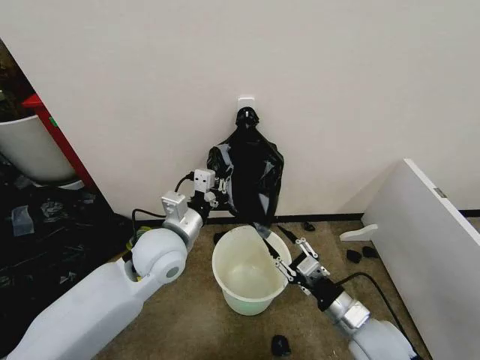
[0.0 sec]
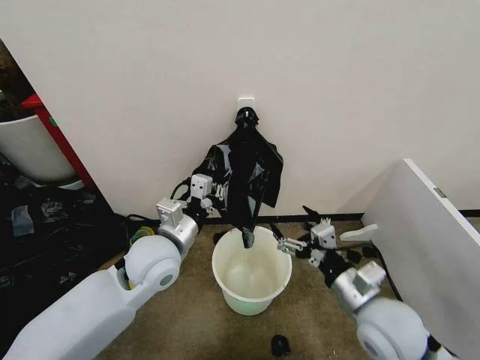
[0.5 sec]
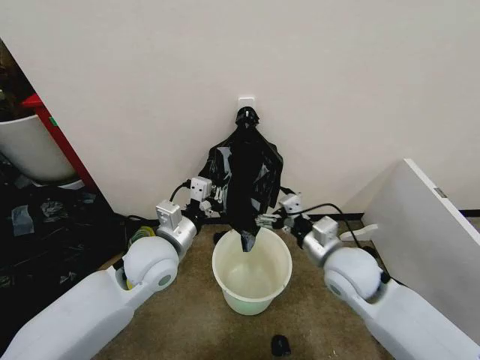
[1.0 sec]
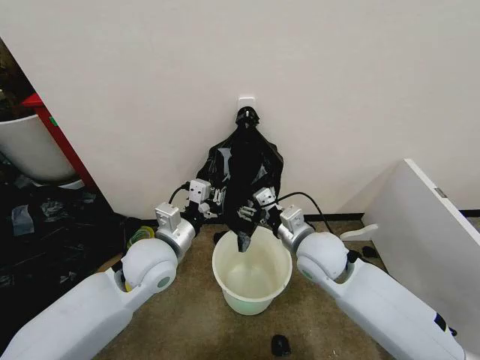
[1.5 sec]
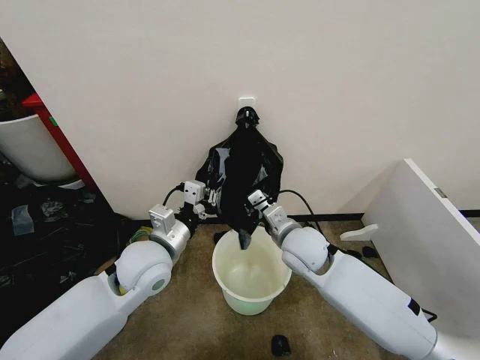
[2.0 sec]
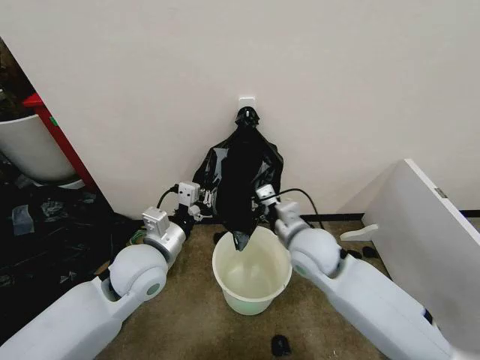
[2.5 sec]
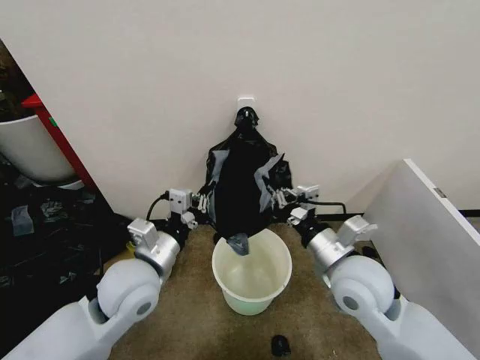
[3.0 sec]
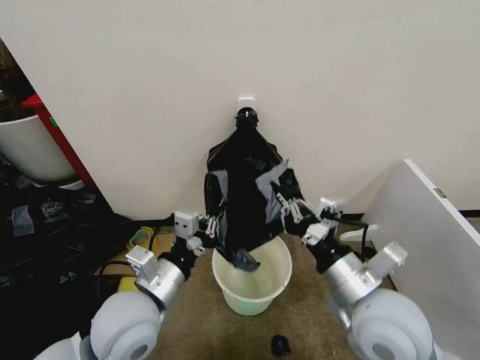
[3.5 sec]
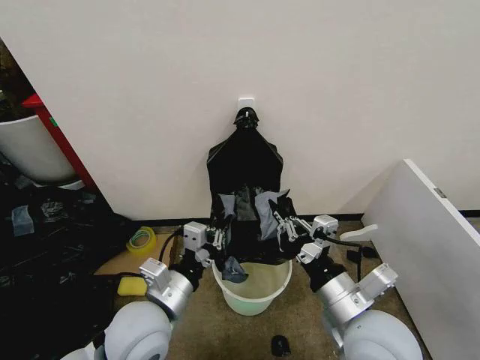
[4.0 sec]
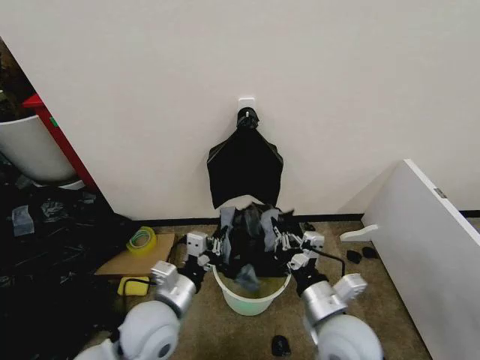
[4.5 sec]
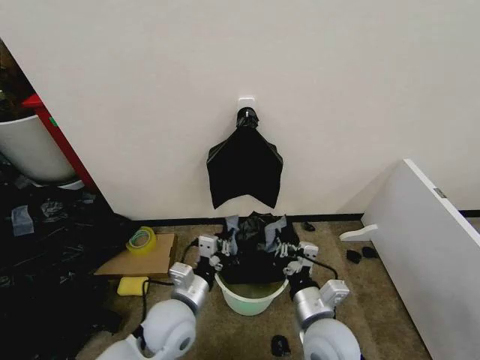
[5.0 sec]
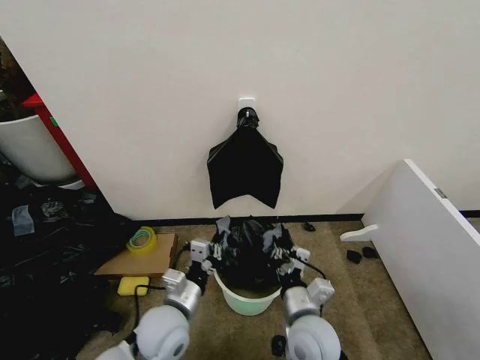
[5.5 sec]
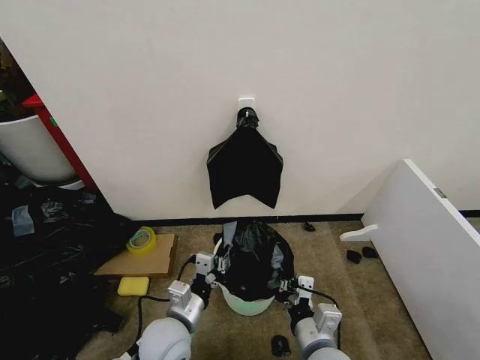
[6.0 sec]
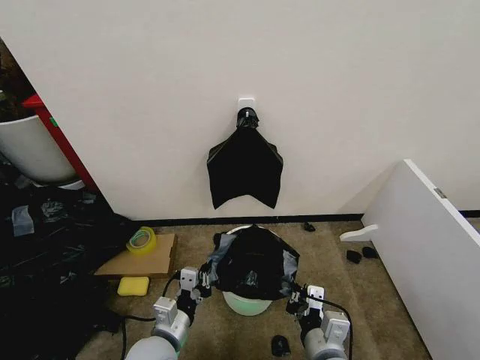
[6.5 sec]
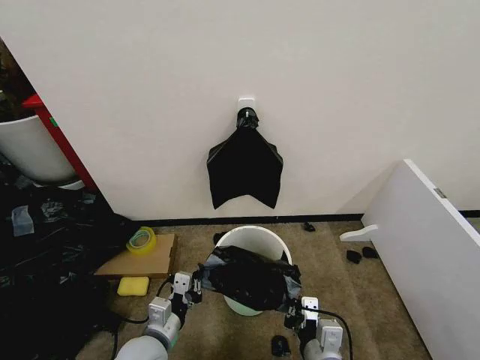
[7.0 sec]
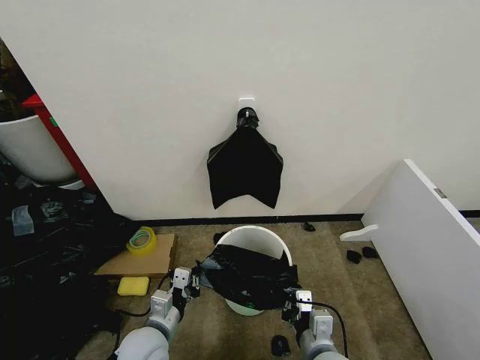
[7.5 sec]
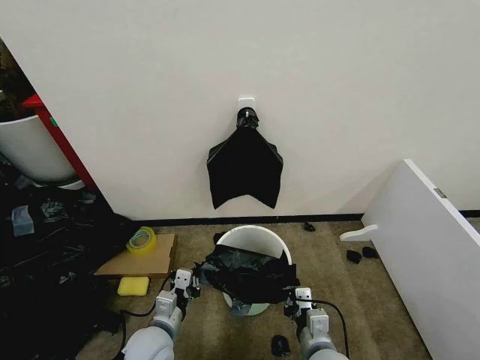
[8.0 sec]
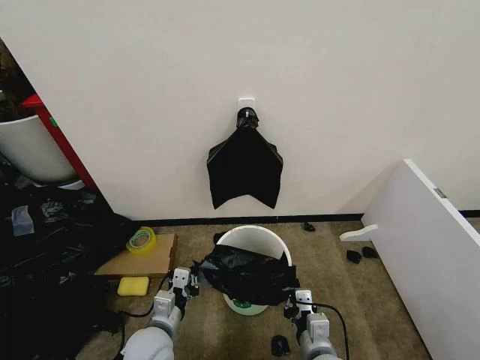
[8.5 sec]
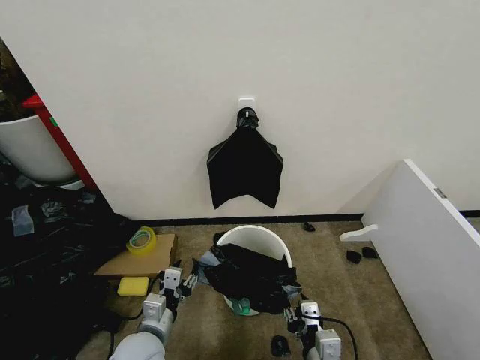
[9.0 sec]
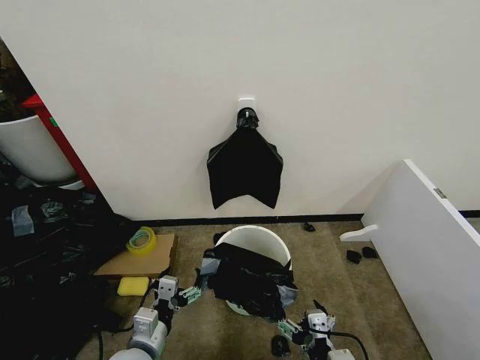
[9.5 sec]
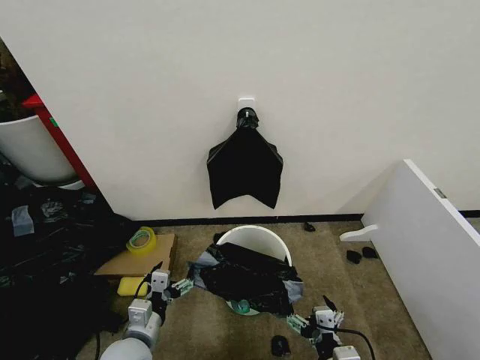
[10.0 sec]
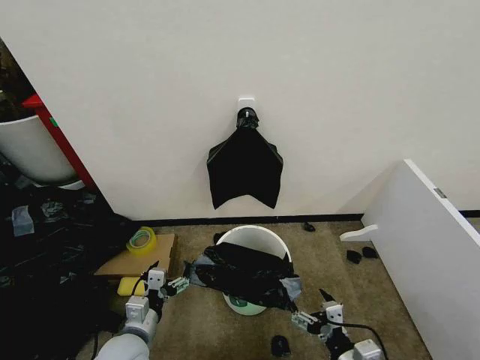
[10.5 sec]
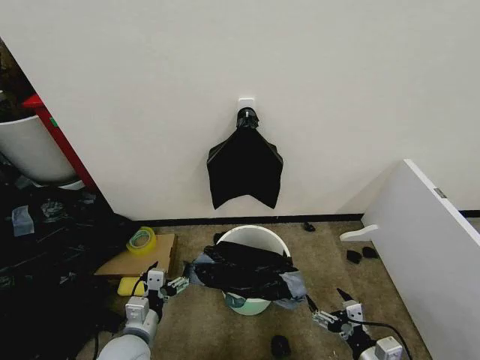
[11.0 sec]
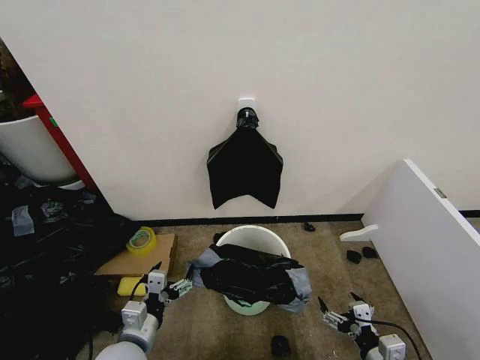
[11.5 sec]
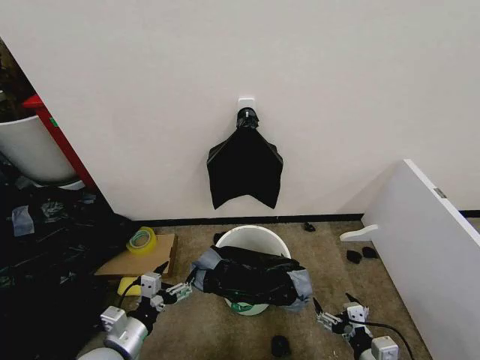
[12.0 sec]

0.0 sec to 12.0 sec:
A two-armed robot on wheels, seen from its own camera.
Task of the whole recording: Place the garbage bag over the trash bin.
0.0 sec to 2.0 sec: The right gripper moves forward, to the left and upward, approximately 20 cm, and opens and closes again.
2.0 sec to 4.0 sec: The right gripper heads backward, covering approximately 20 cm; the left gripper heads backward, covering about 10 cm.
4.0 sec to 6.0 sec: Both grippers move downward, roughly 10 cm.
6.0 sec to 8.0 sec: The grippers both shift downward by some 5 cm.
8.0 sec to 10.0 sec: The right gripper shifts about 5 cm backward, and opens up, while the left gripper opens up.
10.0 sec to 12.0 sec: The right gripper moves to the right, approximately 10 cm.

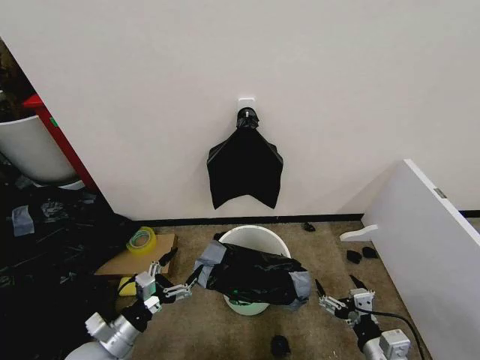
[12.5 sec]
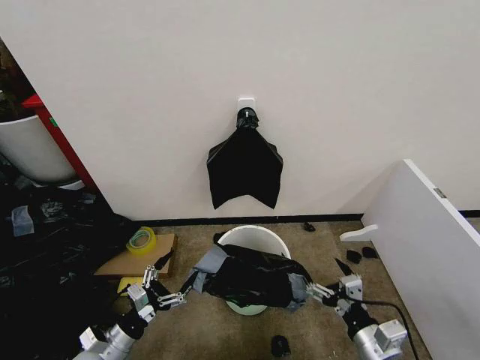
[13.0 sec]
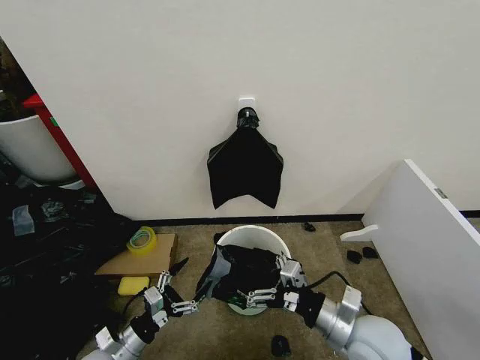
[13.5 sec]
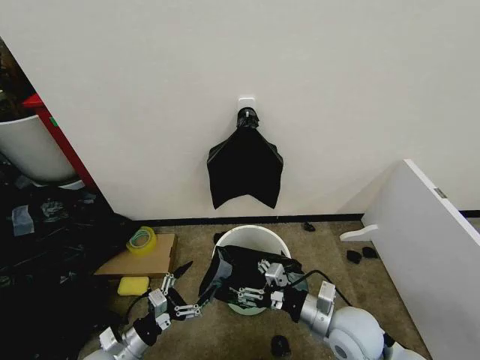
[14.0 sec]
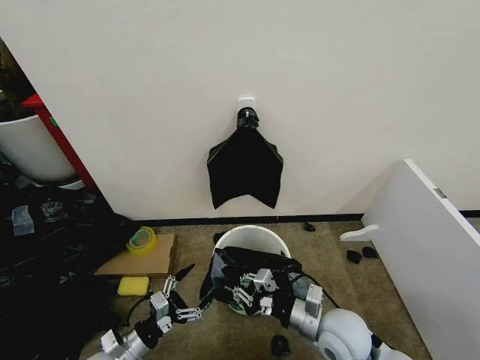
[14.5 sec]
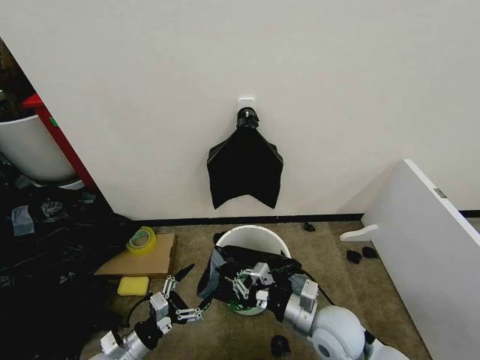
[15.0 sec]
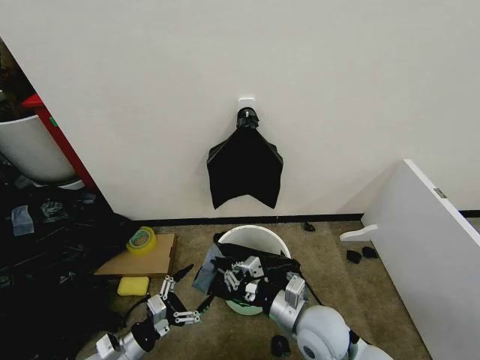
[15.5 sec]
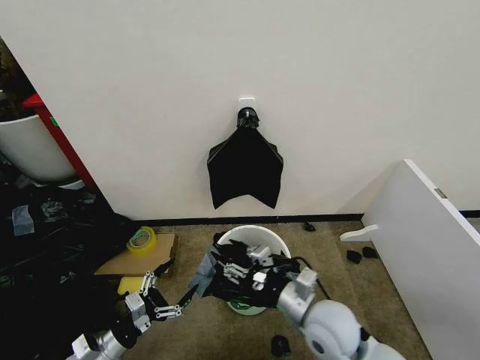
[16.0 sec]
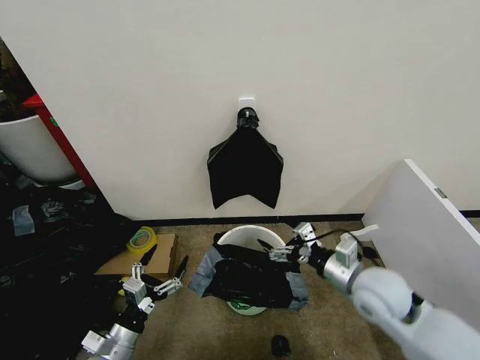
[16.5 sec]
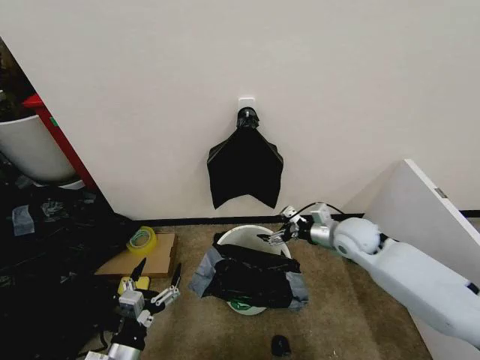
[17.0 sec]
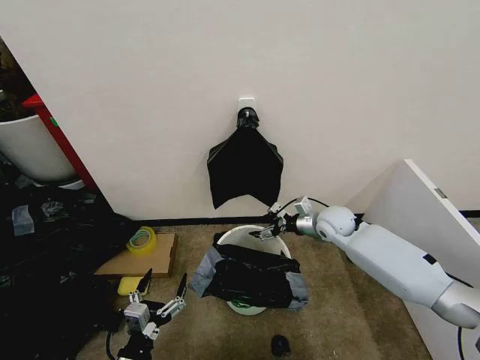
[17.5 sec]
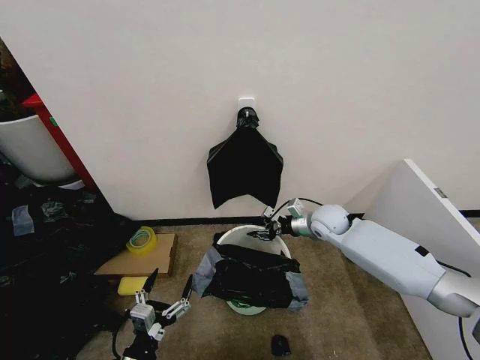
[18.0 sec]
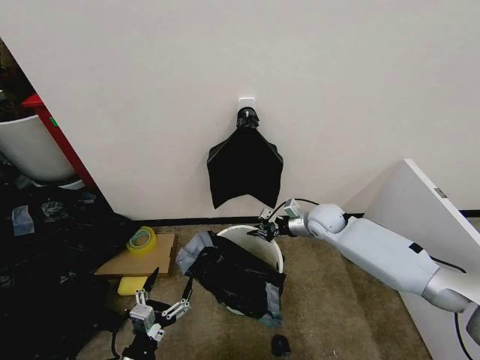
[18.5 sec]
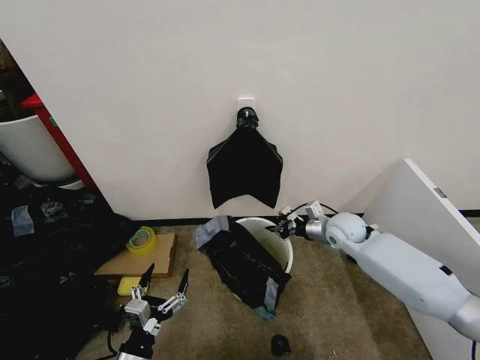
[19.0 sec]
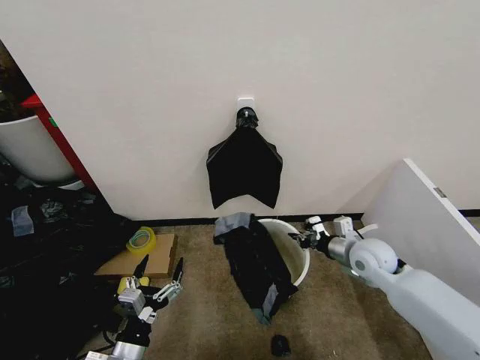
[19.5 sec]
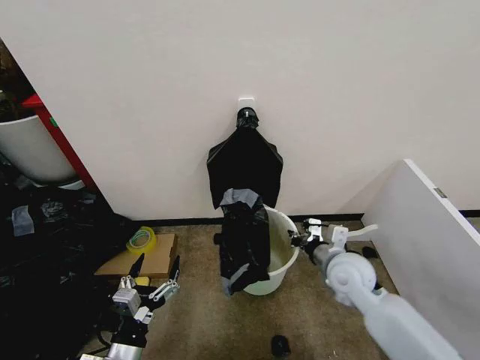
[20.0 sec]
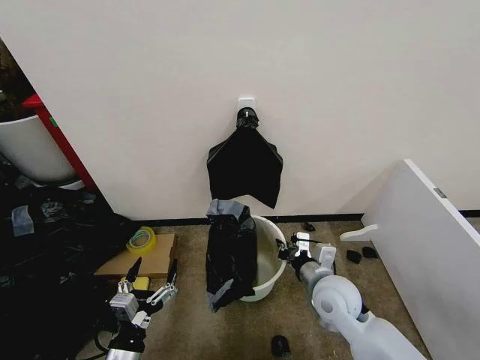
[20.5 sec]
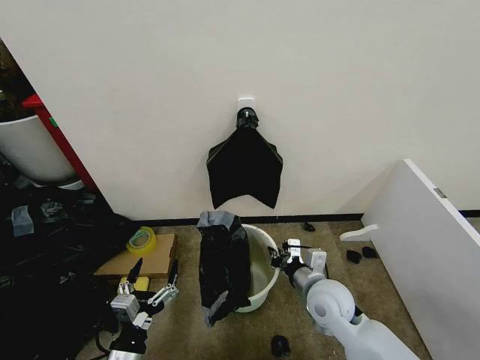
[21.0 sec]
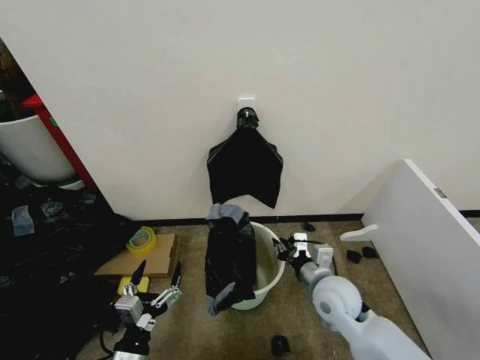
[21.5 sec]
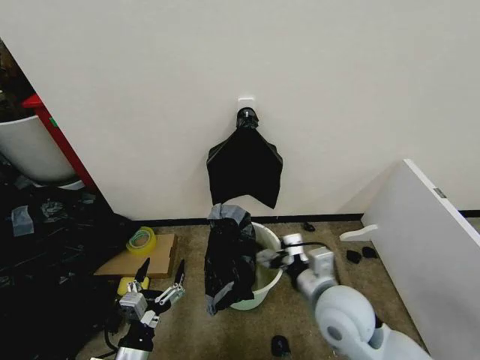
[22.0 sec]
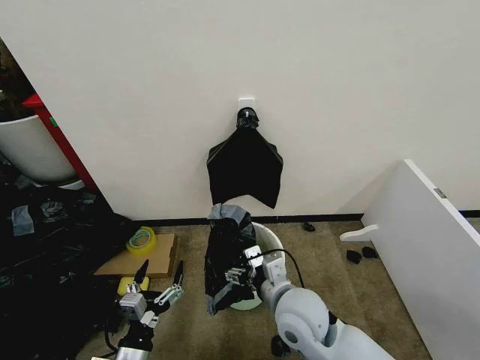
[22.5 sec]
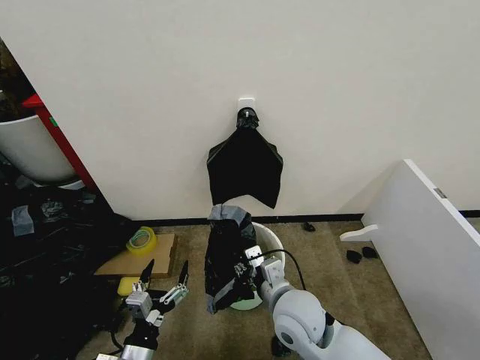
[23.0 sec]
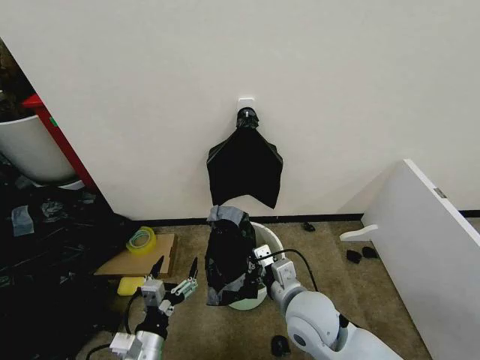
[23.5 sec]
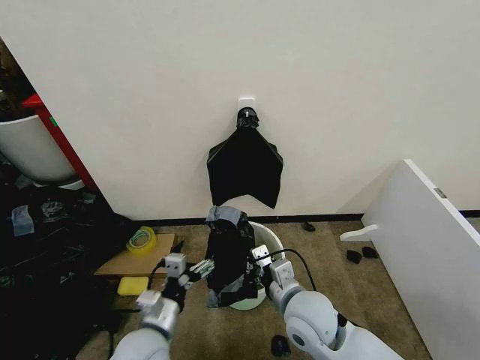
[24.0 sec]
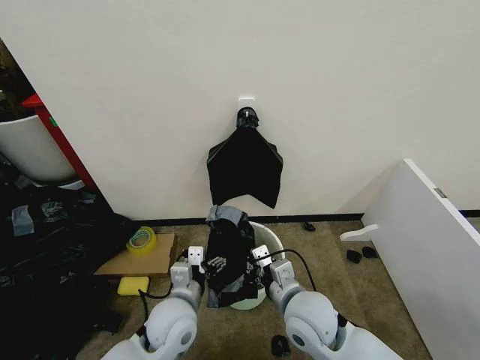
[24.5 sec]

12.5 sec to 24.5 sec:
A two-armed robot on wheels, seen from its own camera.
Task of the whole recording: Place the garbage bag over the trash bin.
12.5 sec to 14.5 sec: The right gripper shifts some 15 cm to the left and forward, and closes.
14.5 sec to 16.5 sec: The right gripper heads upward, to the right and forward, covering roughly 10 cm, and opens.
16.5 sec to 18.5 sec: The left gripper is displaced backward and to the right by about 10 cm. Meanwhile the right gripper travels forward by roughly 20 cm, and closes.
18.5 sec to 20.5 sec: The right gripper shifts roughly 20 cm backward.
20.5 sec to 22.5 sec: The right gripper shifts about 10 cm to the left, and opens.
22.5 sec to 24.5 sec: The right gripper closes its fingers; the left gripper shifts approximately 15 cm forward, to the right and upward.

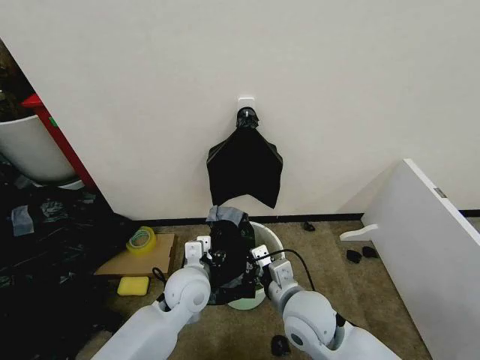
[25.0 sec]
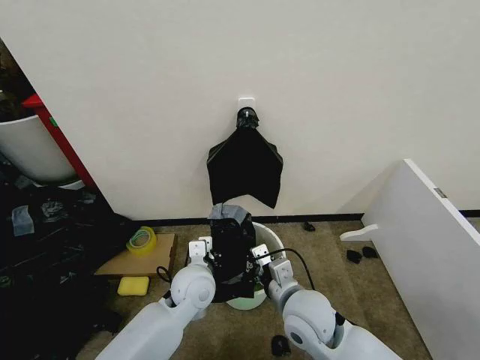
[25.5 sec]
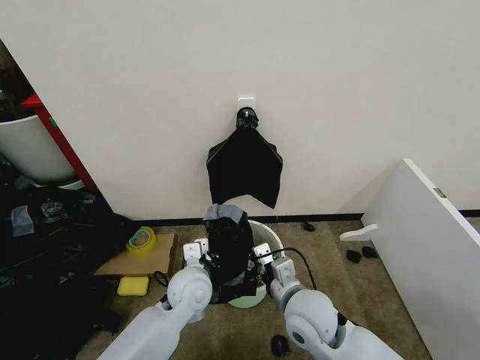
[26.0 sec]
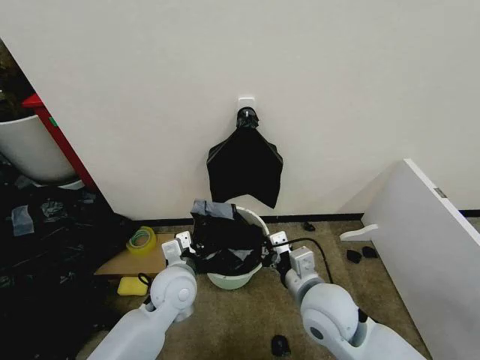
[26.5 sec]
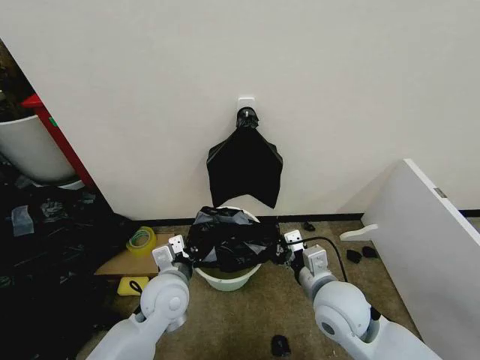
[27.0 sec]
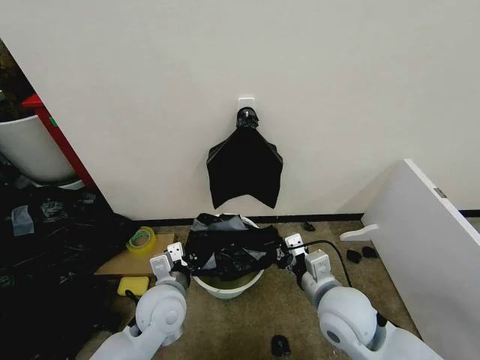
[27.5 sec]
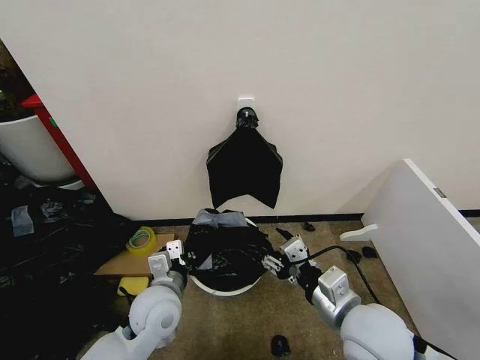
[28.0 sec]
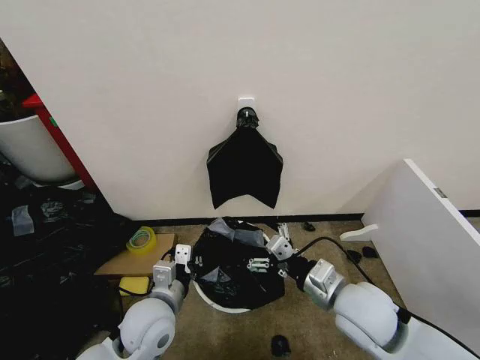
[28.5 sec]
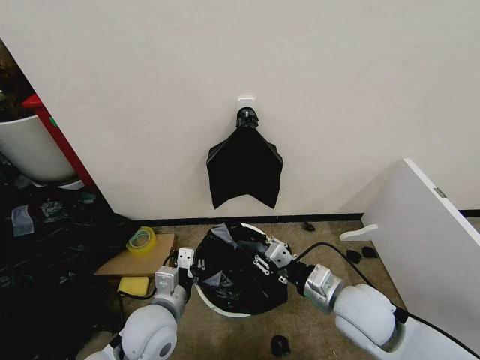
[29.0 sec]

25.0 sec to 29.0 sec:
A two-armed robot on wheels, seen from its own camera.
Task of the whole recording: Place the garbage bag over the trash bin.
25.0 sec to 27.0 sec: The left gripper closes its fingers. The right gripper travels to the right by approximately 5 cm.
27.0 sec to 29.0 sec: The left gripper heads backward, covering some 5 cm; the right gripper opens its fingers.
